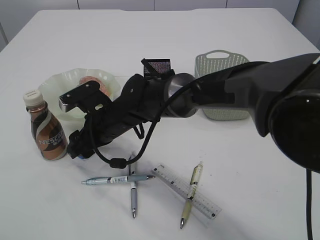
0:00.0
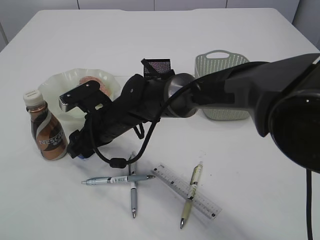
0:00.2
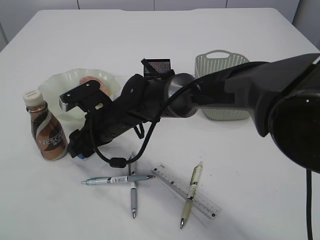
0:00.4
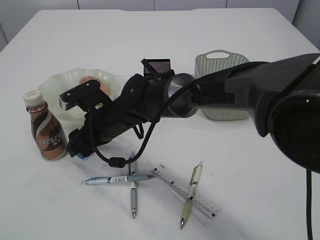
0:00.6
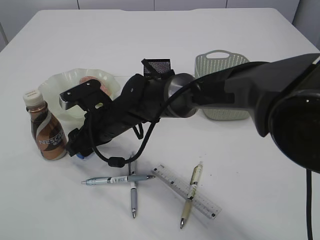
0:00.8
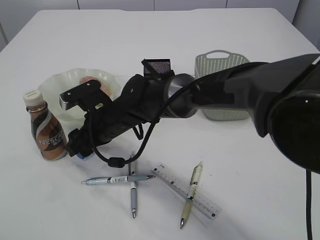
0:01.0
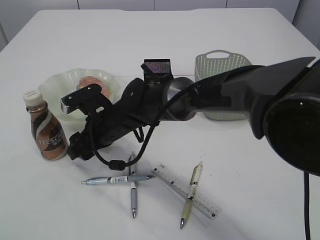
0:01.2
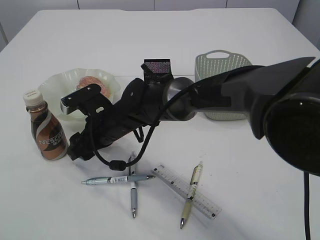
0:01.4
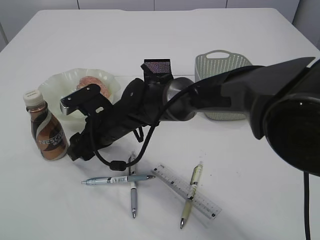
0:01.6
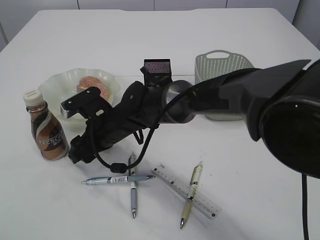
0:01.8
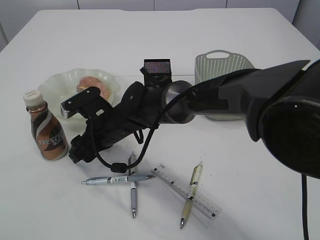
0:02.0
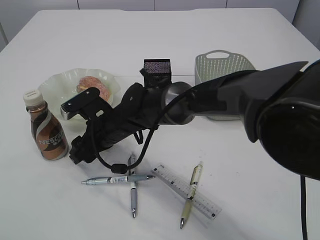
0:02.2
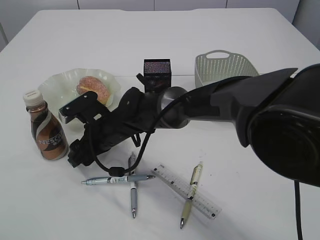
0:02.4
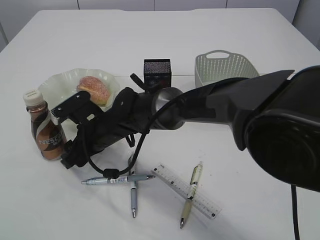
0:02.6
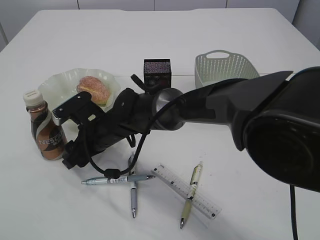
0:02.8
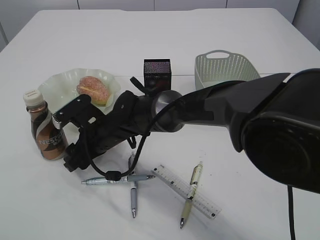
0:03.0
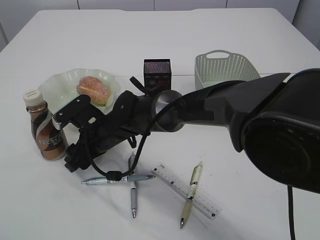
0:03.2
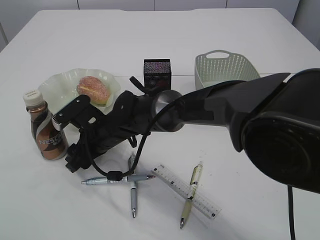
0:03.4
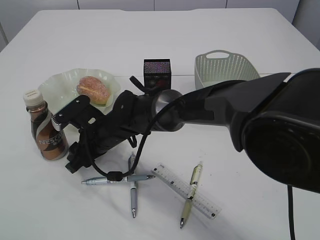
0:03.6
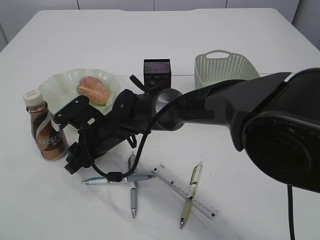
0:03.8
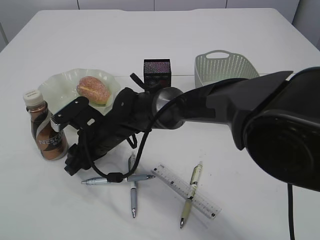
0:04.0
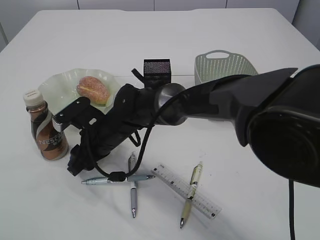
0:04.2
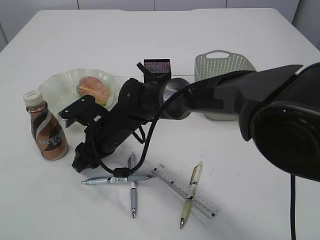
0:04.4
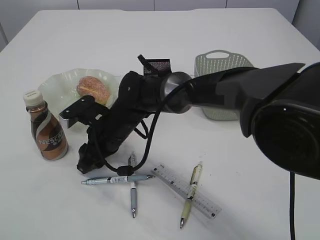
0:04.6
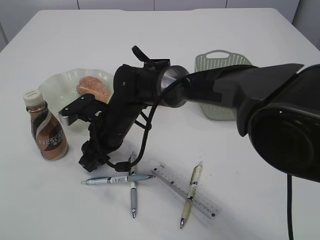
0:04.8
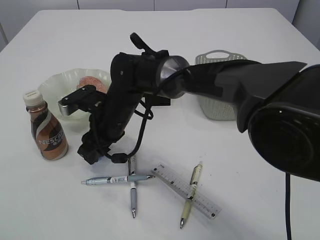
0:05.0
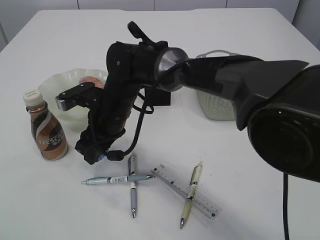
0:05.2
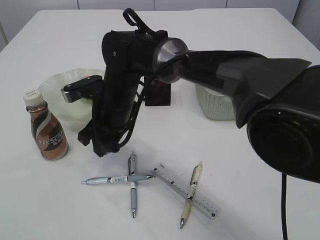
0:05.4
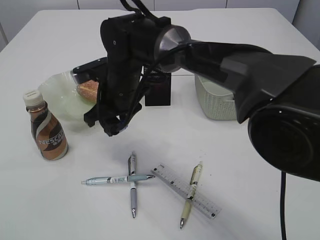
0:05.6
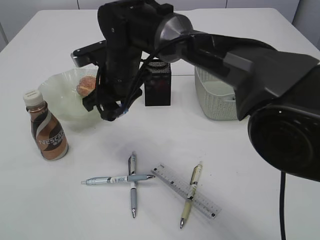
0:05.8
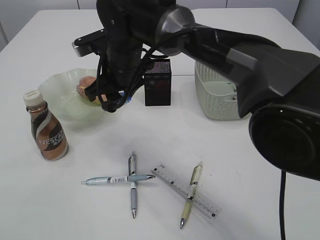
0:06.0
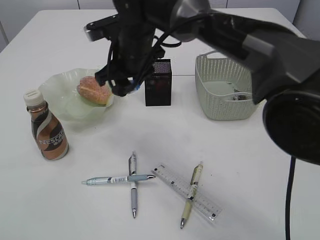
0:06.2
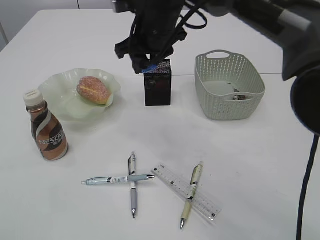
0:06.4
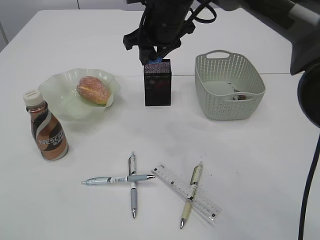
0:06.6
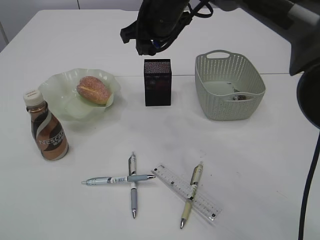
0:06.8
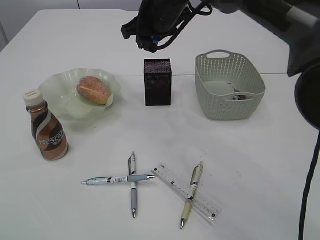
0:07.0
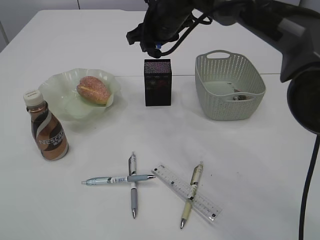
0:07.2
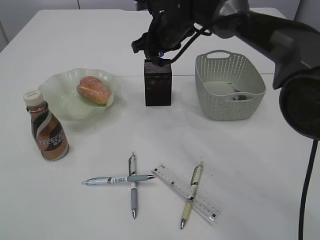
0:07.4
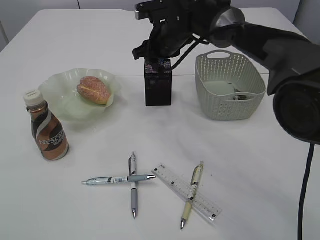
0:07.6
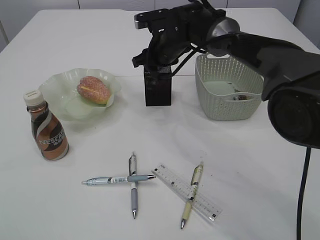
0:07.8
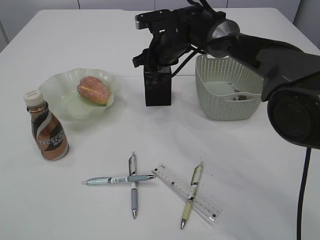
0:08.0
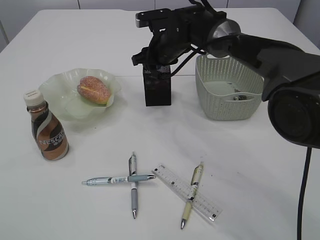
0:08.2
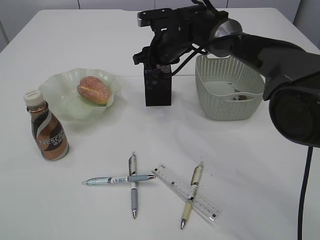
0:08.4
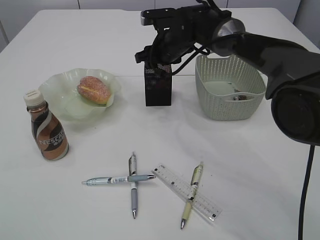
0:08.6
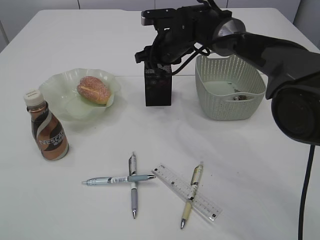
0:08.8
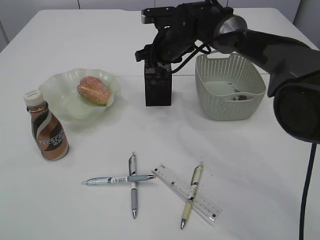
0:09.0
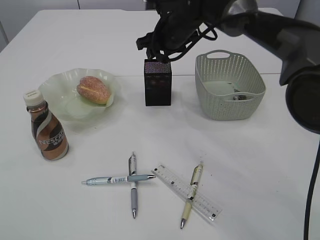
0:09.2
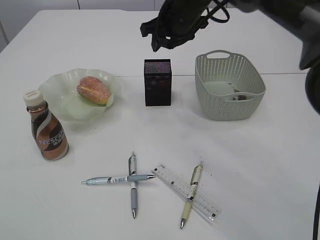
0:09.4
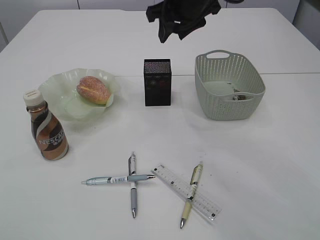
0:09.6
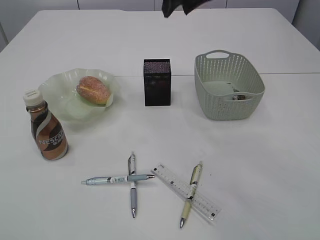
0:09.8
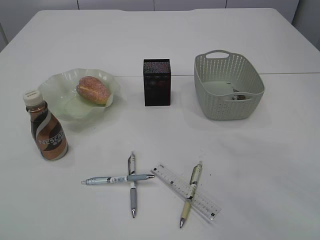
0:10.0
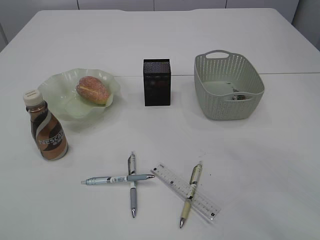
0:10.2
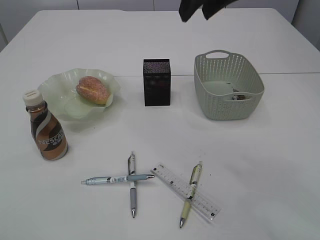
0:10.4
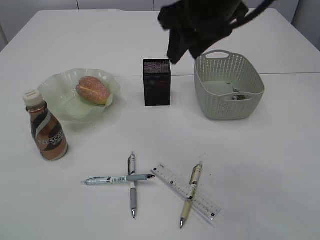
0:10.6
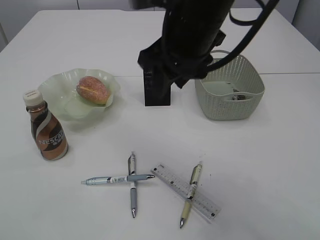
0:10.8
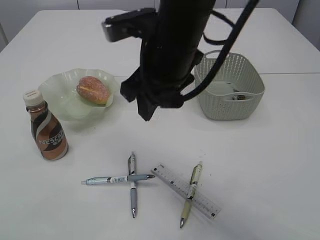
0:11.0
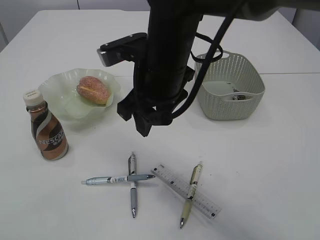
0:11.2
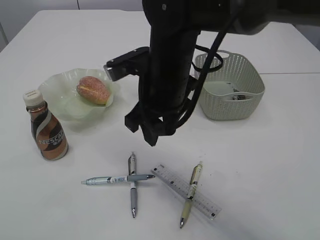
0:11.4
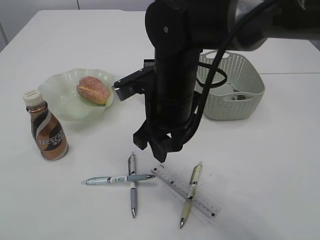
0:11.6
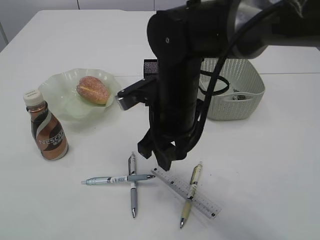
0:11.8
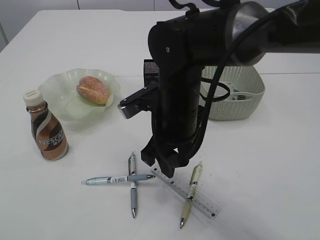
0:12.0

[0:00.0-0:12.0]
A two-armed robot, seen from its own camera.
Step, 0:00.0 to 0:05.6: Pick up the blue pencil sharpener.
Step, 0:05.8 to 0:09.2: Place the blue pencil sharpener into the pen holder.
0:00.0 to 0:01.6: Neither gripper changes place.
0:01.6 to 0:04.4: There are only small adjustments of the grippers.
0:04.4 to 0:06.0: The right gripper heads upward, covering roughly 15 cm.
0:06.0 to 0:07.6: The right gripper travels forward and to the right by approximately 15 cm.
0:07.6 to 0:09.0: The grippers make only small movements.
0:09.0 to 0:10.4: The right gripper heads upward and backward, covering some 25 cm.
0:10.4 to 0:12.0: The right gripper goes roughly 20 cm downward and to the left.

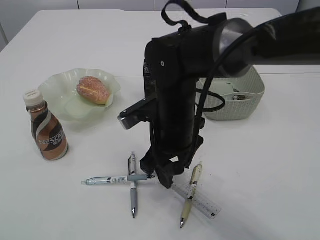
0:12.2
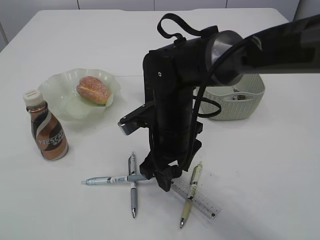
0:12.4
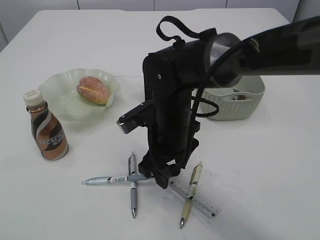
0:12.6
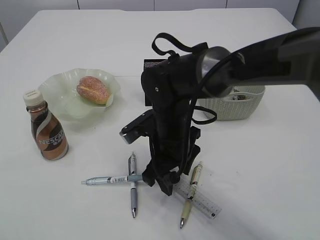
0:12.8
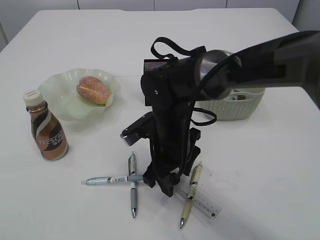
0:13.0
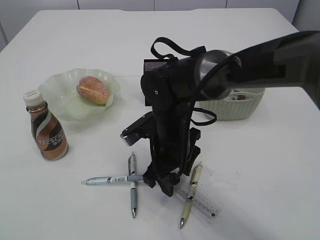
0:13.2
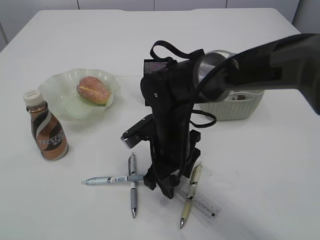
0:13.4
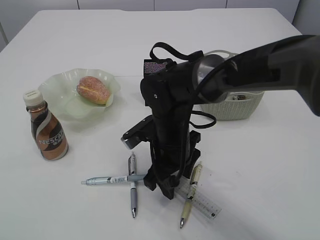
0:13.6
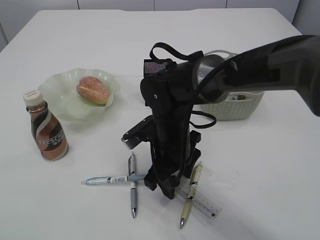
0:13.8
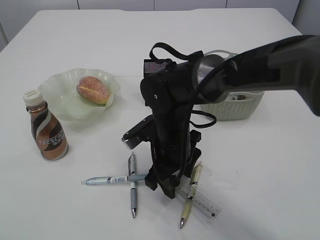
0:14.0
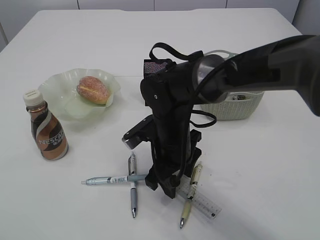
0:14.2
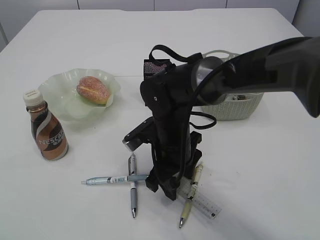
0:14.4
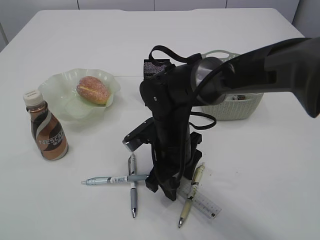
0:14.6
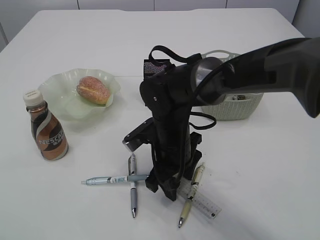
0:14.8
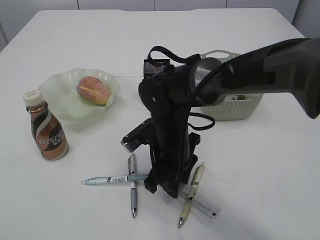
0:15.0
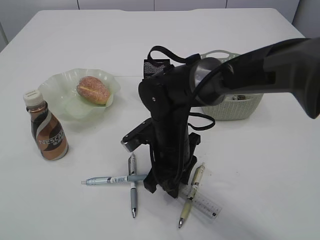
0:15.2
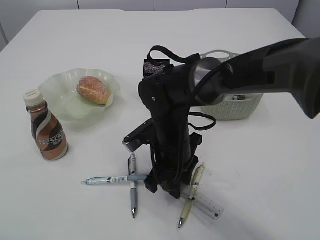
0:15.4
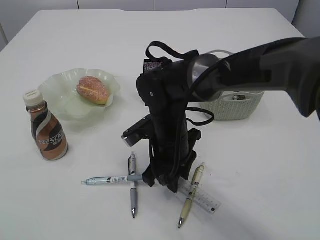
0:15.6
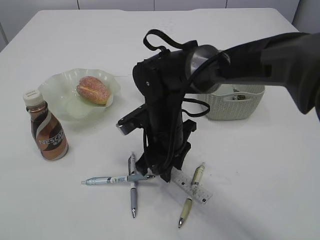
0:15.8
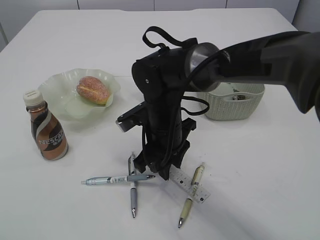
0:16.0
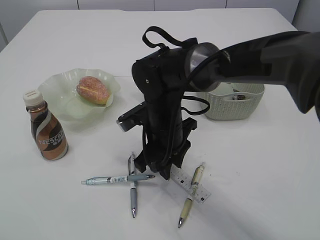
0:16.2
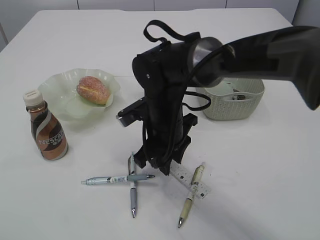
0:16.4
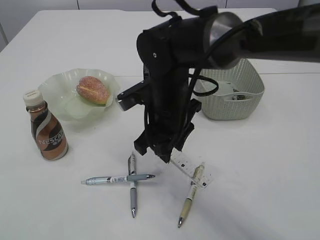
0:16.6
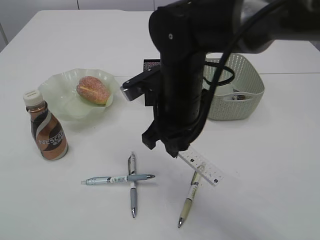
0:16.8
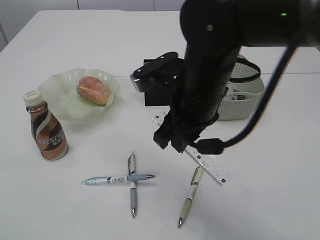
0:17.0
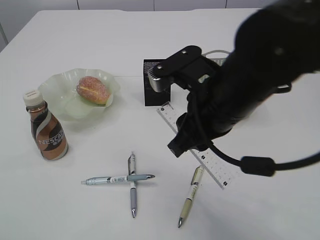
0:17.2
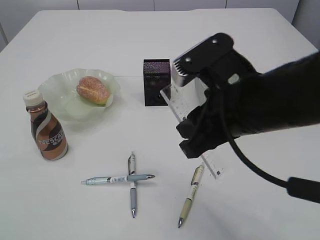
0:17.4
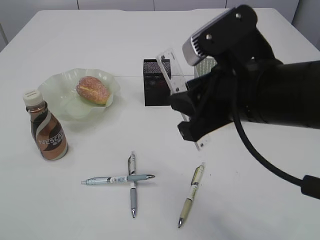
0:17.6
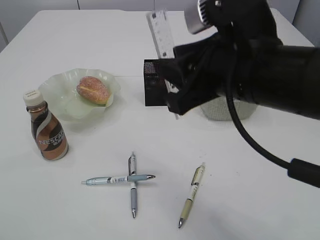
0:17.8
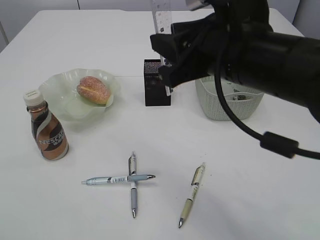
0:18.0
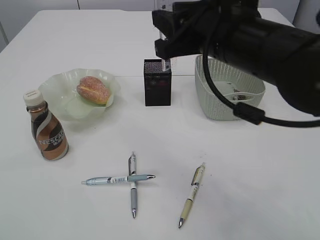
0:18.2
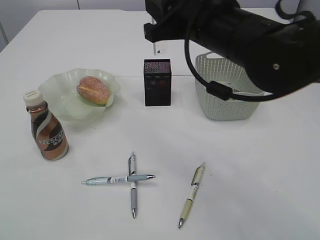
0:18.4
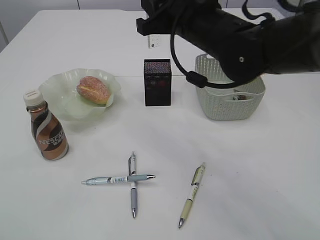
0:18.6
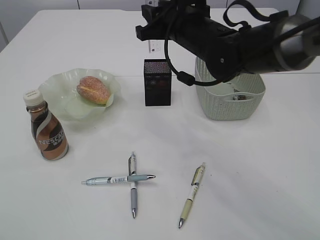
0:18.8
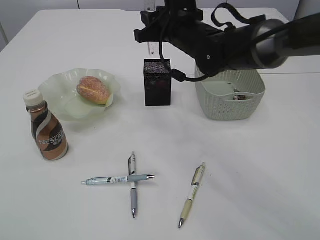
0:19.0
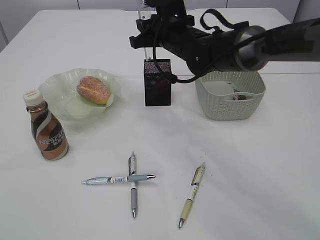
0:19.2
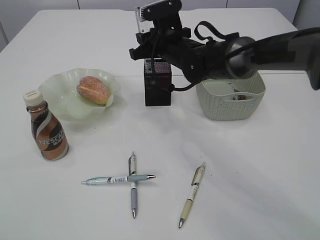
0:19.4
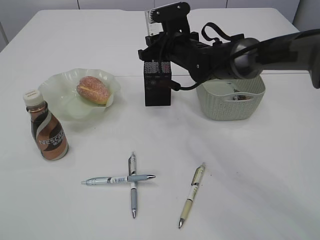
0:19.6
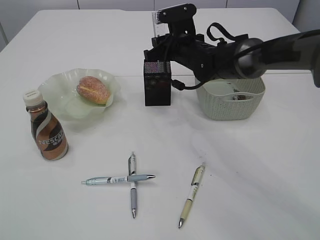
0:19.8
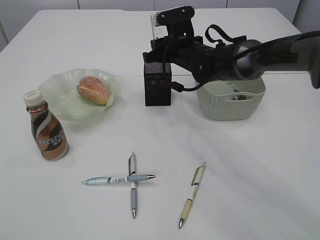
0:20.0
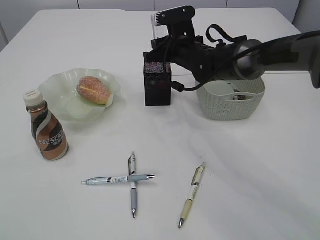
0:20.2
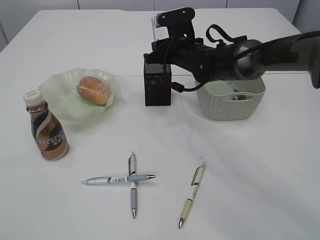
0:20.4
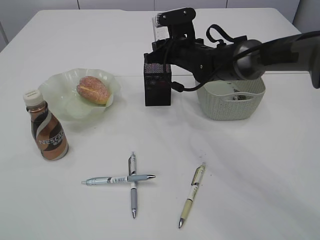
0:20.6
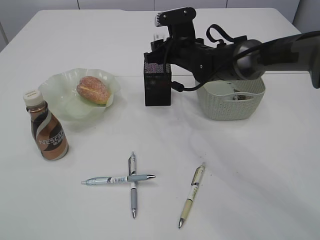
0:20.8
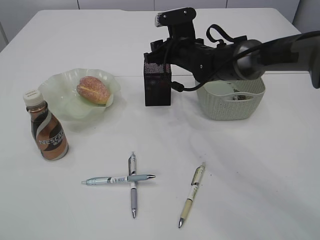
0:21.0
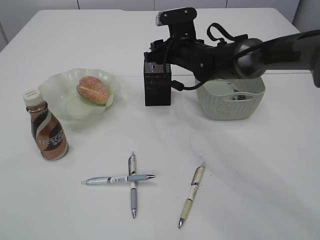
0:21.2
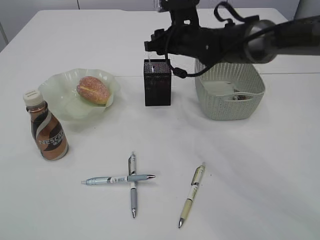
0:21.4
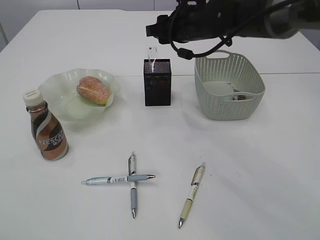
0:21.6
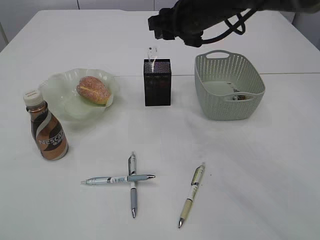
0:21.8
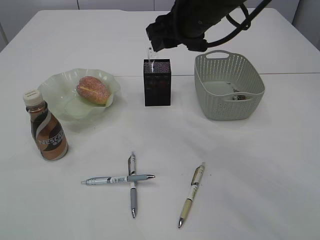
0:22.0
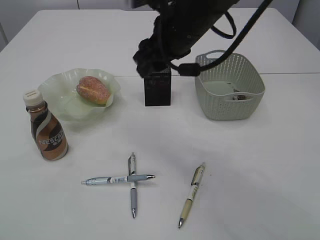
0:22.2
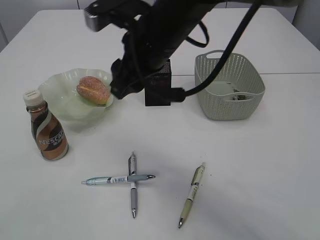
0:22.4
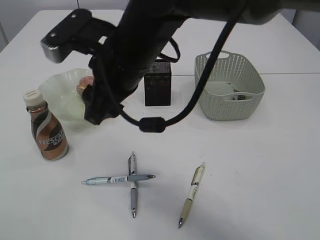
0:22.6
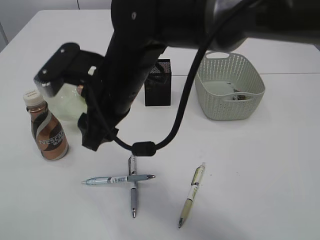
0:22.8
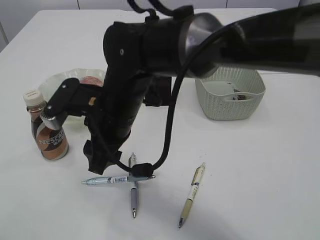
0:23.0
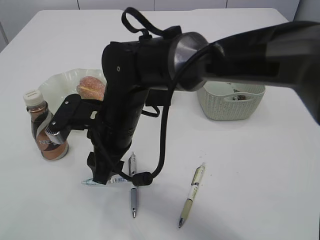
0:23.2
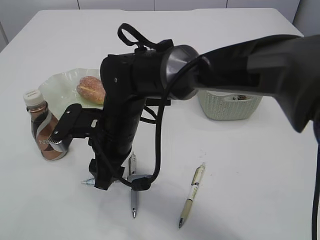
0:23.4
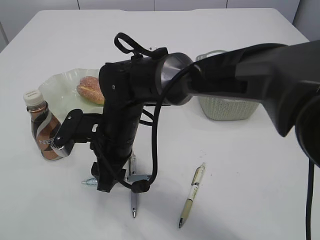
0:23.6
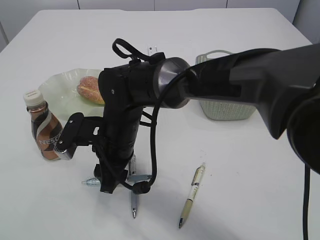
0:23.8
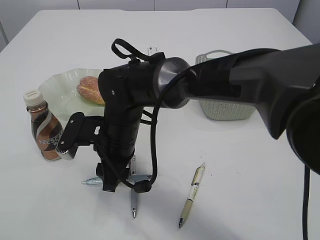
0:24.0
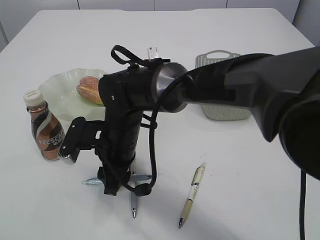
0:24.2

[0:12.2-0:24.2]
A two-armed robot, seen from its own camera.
Step, 0:12.2 to 0:16.6: pick up the ruler.
Step, 0:16.8 to 0:21.6: Place the ruler into the pen holder.
0:12.2 to 0:13.8: The right gripper moves downward, some 5 cm.
0:13.8 to 0:15.2: The right gripper closes its fingers.
0:15.2 to 0:16.6: The right gripper travels upward by approximately 5 cm.
0:16.6 to 0:18.2: The right gripper heads upward, to the right and backward, covering about 15 cm.
0:18.2 to 0:19.8: The right gripper shifts some 25 cm forward and downward.
0:19.8 to 0:21.2: Both grippers stay about where they are.
0:21.2 to 0:22.6: The right gripper moves backward, to the left and upward, approximately 25 cm.
0:22.6 to 0:24.2: The right gripper is displaced downward by about 15 cm.
